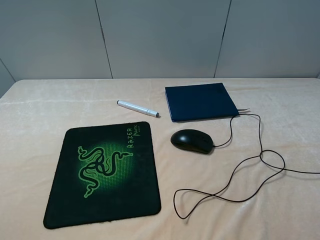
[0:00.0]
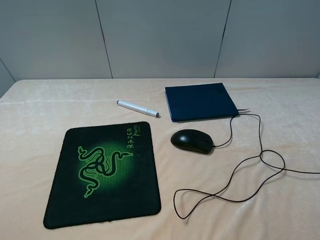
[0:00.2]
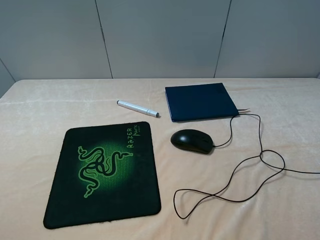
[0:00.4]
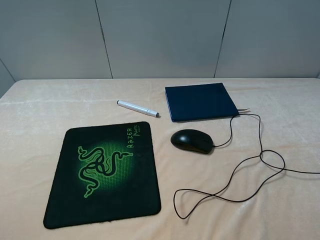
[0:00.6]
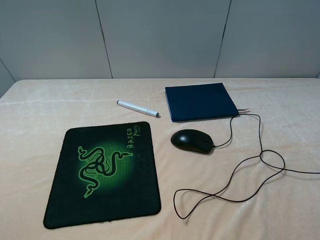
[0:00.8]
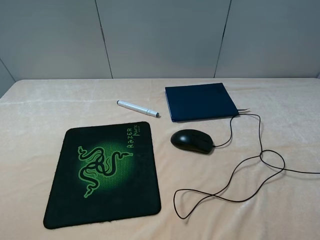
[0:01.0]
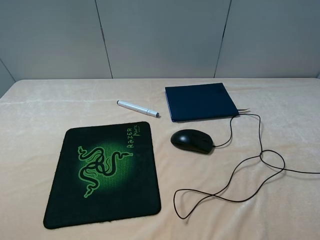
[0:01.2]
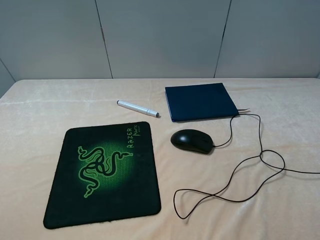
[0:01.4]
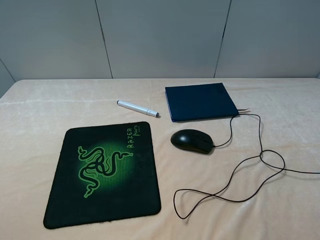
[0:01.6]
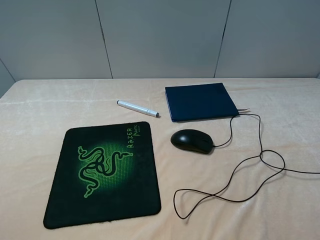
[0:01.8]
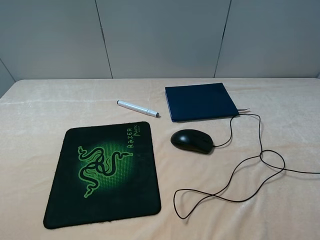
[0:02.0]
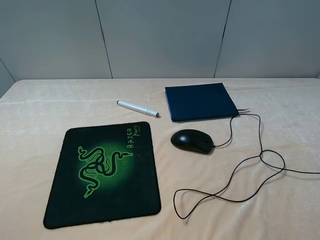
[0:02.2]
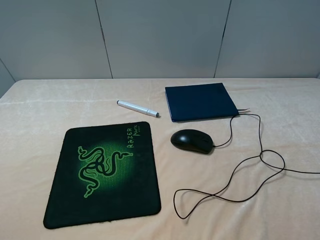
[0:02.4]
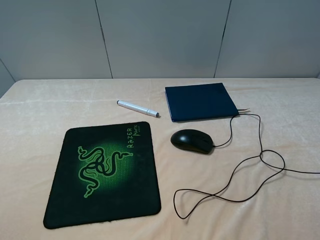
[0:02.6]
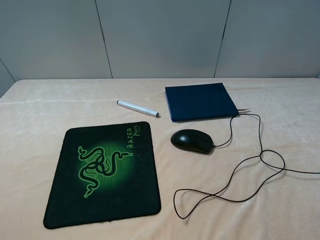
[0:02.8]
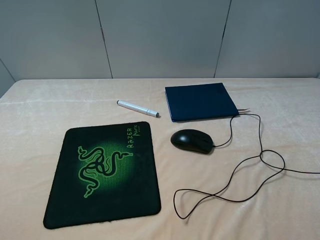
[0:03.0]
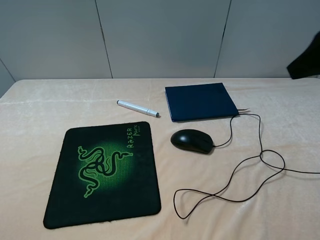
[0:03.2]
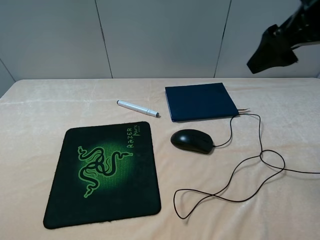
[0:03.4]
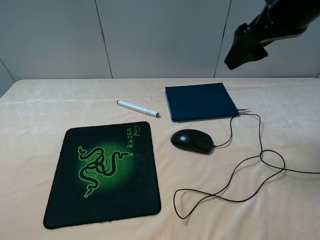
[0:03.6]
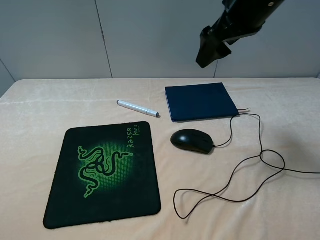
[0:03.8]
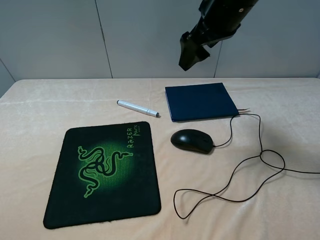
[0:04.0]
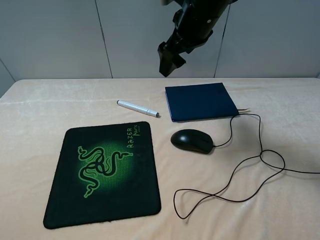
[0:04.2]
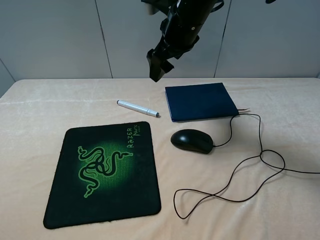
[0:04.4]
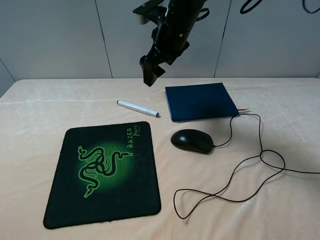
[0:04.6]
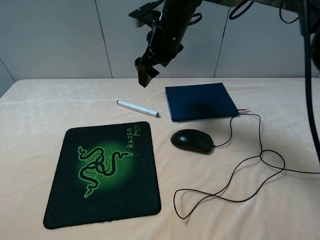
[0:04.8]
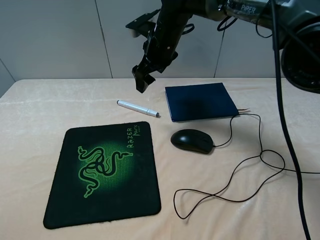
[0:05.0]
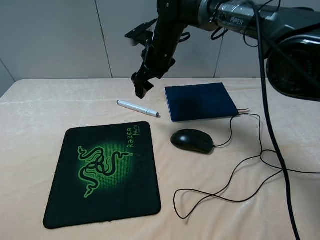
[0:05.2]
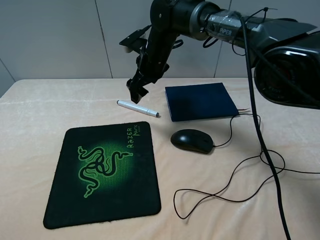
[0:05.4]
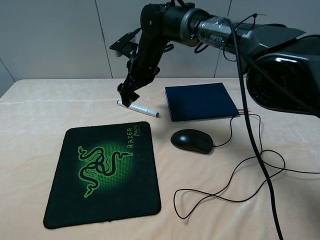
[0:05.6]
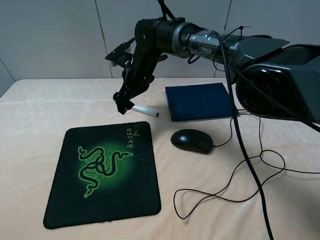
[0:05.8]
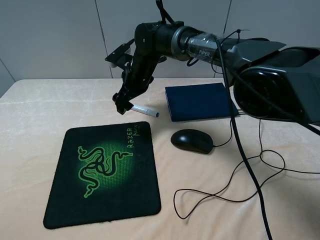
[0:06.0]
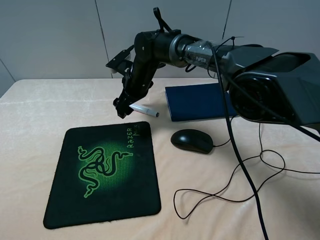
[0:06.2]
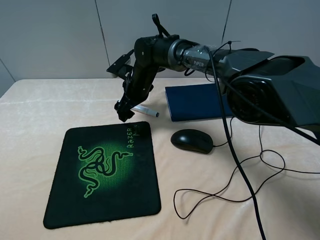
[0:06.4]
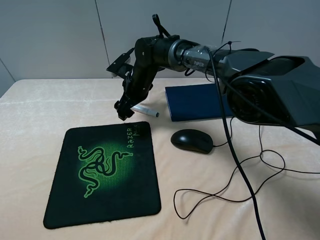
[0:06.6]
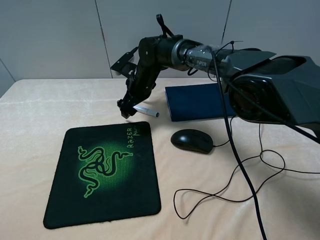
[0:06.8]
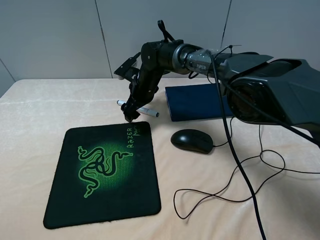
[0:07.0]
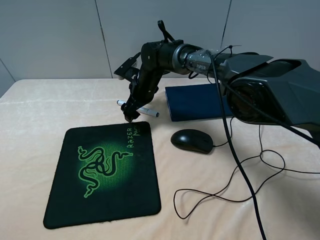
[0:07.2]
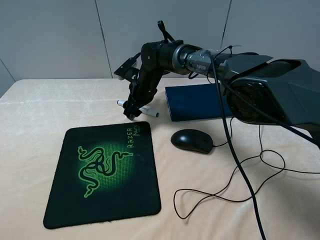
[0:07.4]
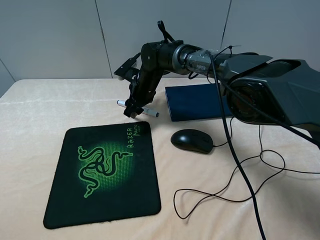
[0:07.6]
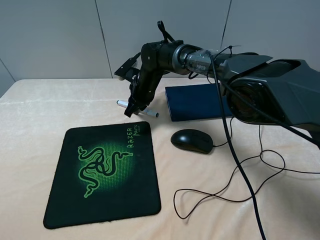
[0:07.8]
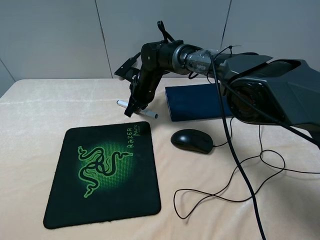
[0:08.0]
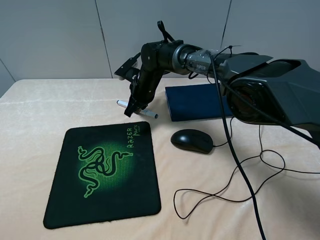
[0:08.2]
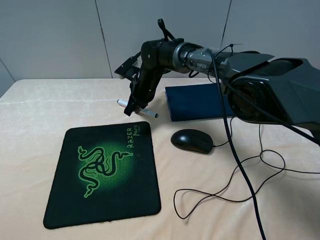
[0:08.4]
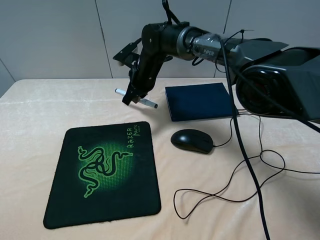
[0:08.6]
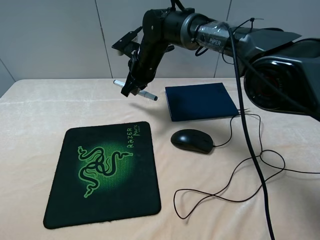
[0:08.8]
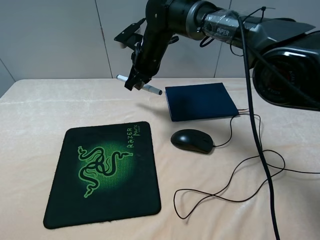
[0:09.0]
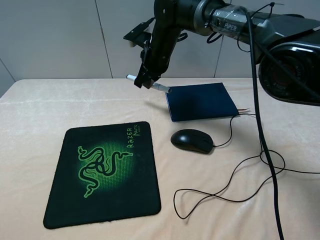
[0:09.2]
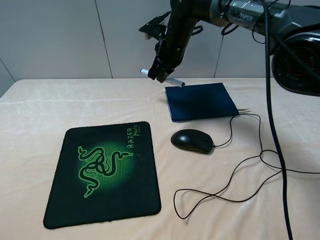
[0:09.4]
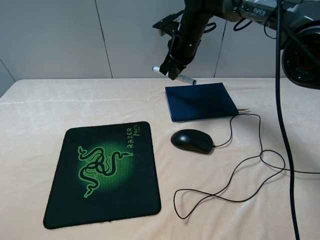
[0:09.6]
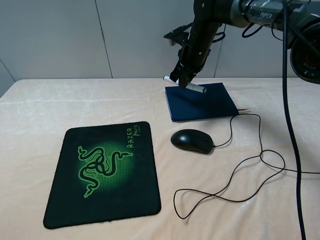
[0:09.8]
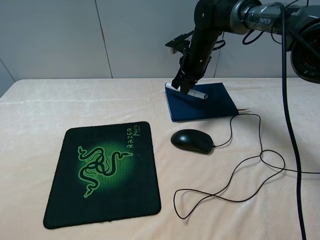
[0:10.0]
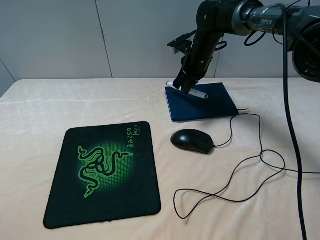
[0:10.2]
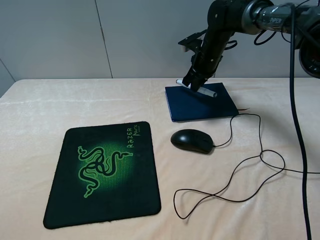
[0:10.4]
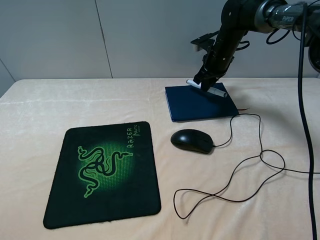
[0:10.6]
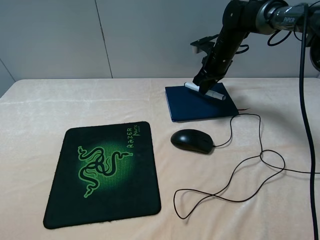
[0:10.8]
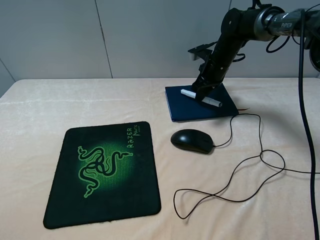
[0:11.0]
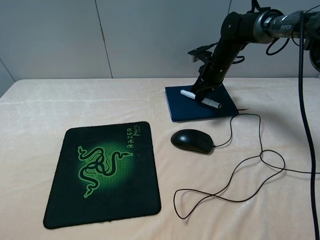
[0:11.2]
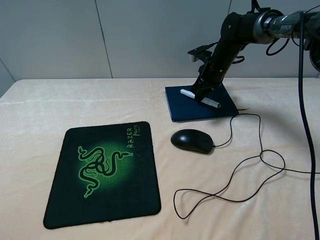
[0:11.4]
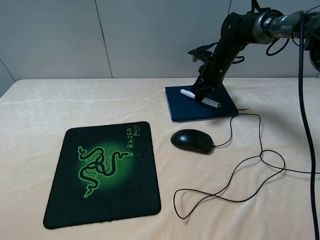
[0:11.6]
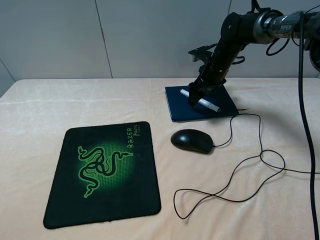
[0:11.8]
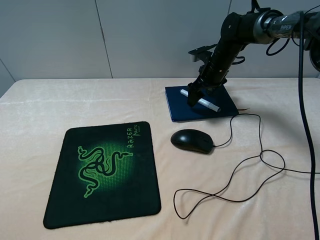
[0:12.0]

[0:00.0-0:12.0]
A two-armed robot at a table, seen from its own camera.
Step, 0:00.0 to 0:08.0: Grasp the marker with the right gripper.
Step, 0:08.2 to 0:12.0: Place the marker on the notebook with the right gripper.
0:00.0 to 0:01.6: Neither gripper changes place.
0:03.0 to 0:04.4: The right gripper goes roughly 30 cm to the left and forward.
0:04.4 to 0:06.0: The right gripper moves downward and to the left, some 15 cm.
0:06.0 to 0:07.6: The right gripper closes up.
0:07.6 to 0:09.0: The right gripper moves upward, roughly 10 cm, and closes.
0:09.0 to 0:10.4: The right gripper travels to the right by approximately 15 cm.
0:10.4 to 0:12.0: The right gripper opens up.

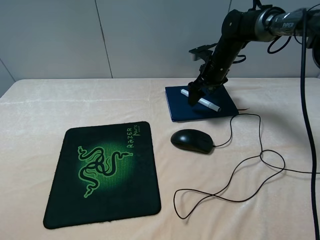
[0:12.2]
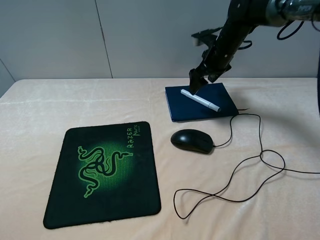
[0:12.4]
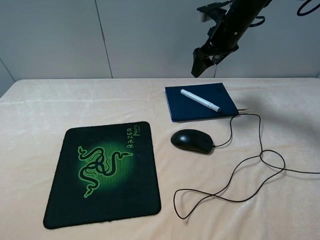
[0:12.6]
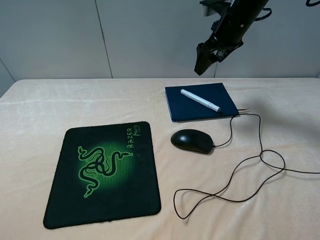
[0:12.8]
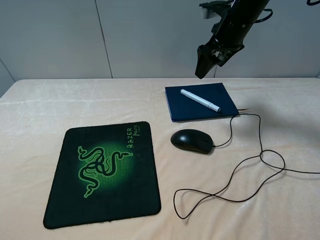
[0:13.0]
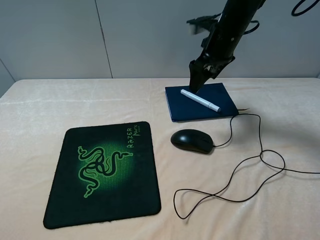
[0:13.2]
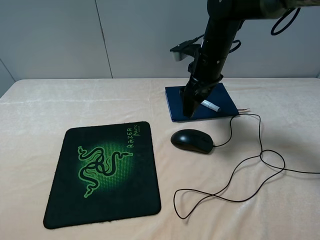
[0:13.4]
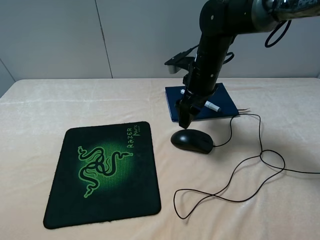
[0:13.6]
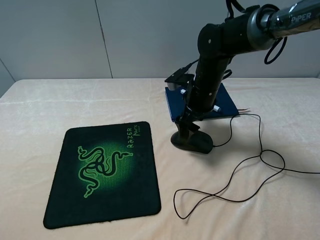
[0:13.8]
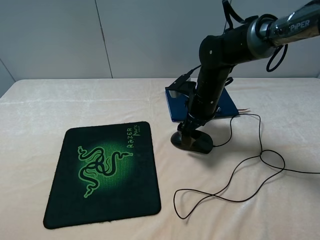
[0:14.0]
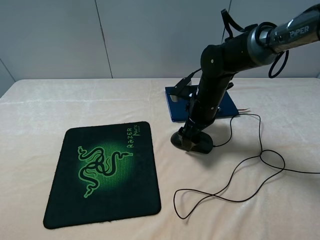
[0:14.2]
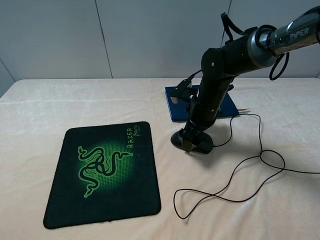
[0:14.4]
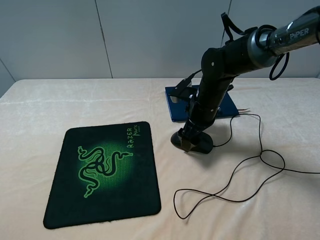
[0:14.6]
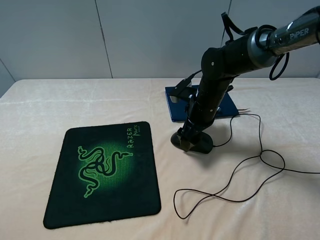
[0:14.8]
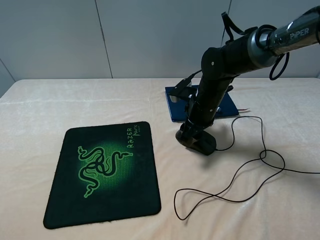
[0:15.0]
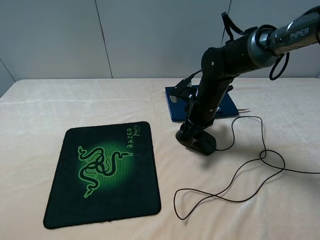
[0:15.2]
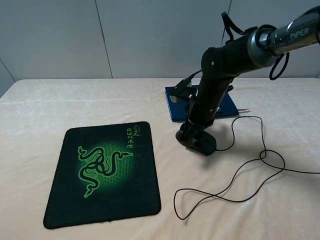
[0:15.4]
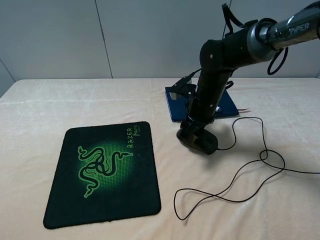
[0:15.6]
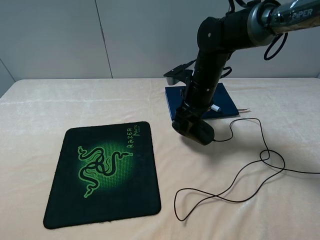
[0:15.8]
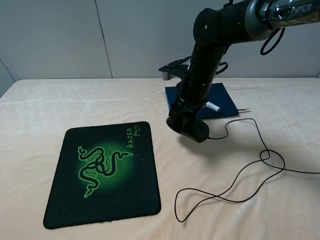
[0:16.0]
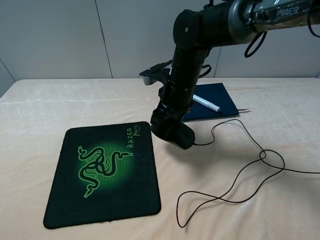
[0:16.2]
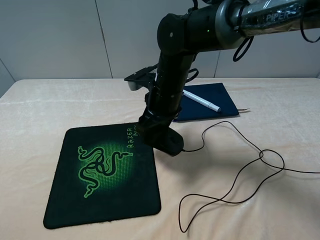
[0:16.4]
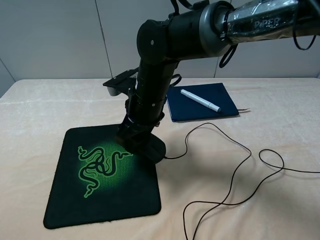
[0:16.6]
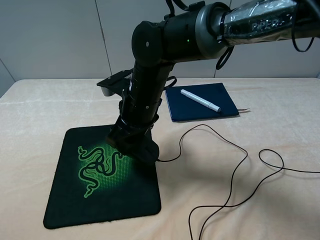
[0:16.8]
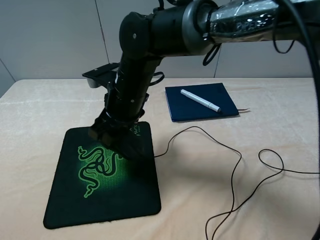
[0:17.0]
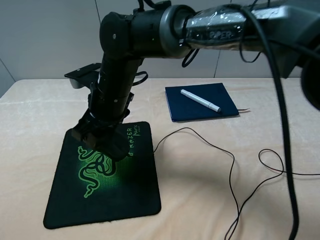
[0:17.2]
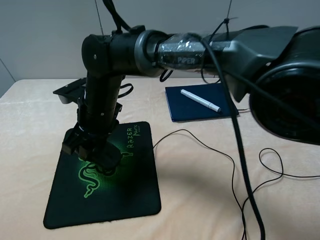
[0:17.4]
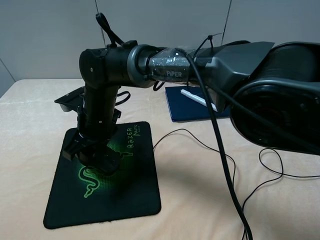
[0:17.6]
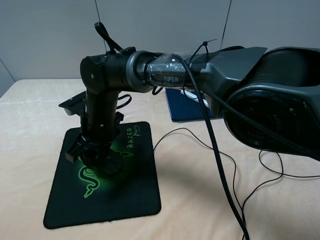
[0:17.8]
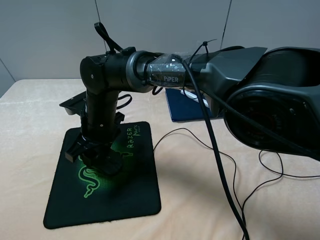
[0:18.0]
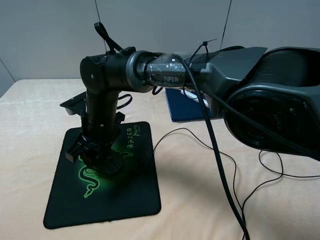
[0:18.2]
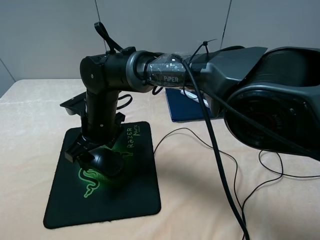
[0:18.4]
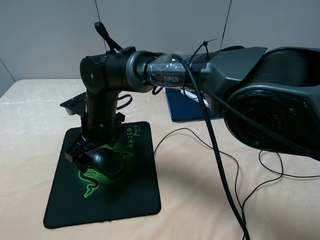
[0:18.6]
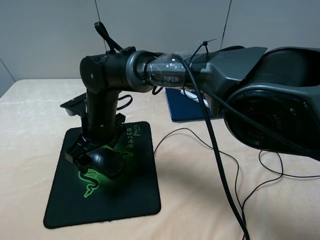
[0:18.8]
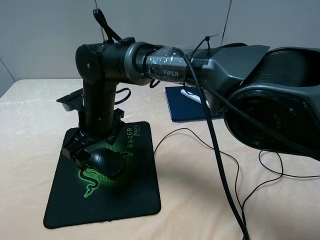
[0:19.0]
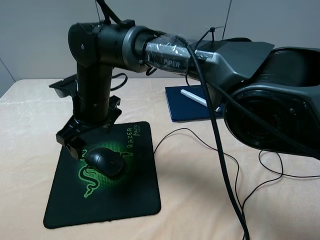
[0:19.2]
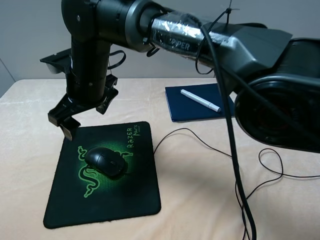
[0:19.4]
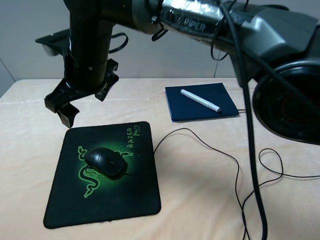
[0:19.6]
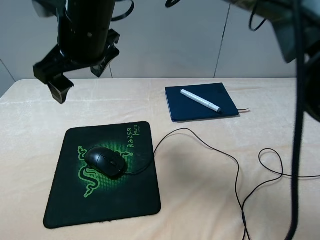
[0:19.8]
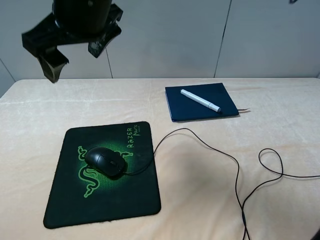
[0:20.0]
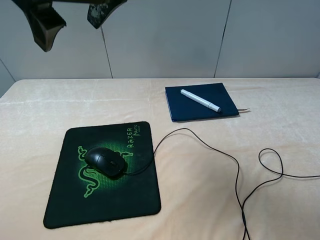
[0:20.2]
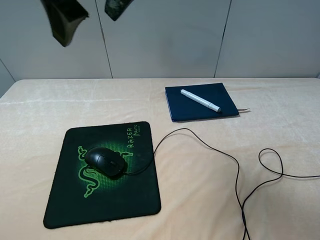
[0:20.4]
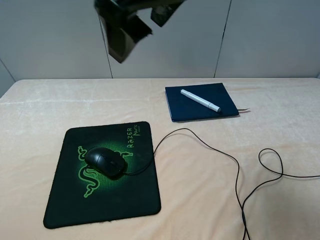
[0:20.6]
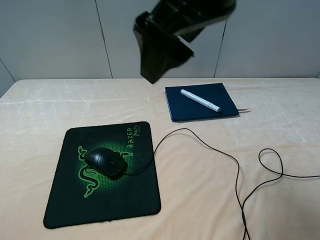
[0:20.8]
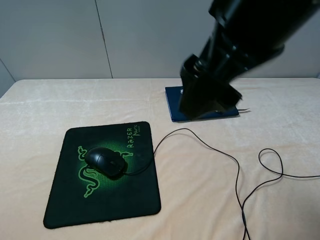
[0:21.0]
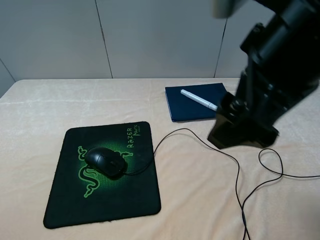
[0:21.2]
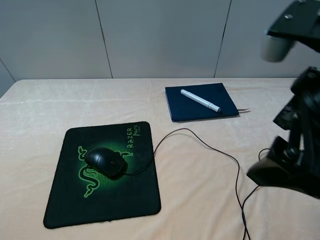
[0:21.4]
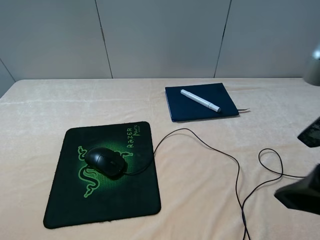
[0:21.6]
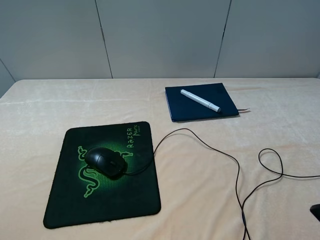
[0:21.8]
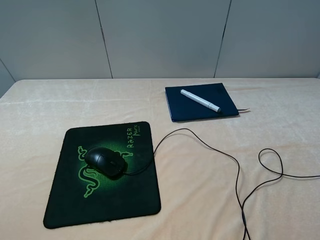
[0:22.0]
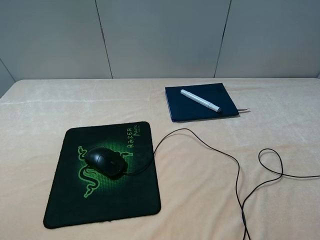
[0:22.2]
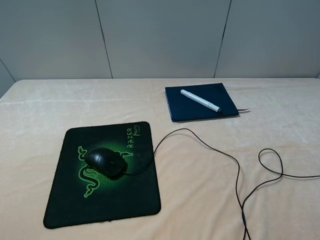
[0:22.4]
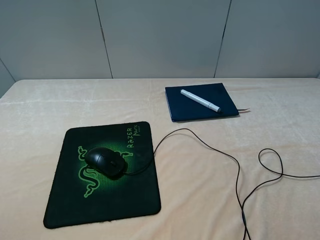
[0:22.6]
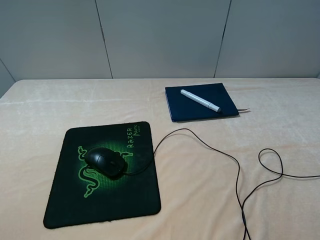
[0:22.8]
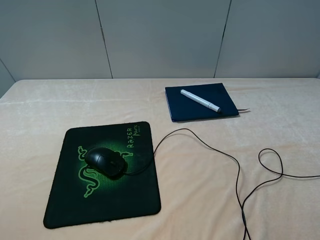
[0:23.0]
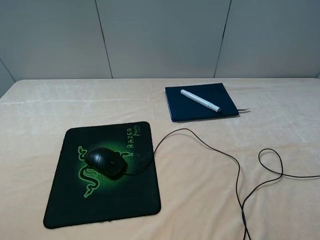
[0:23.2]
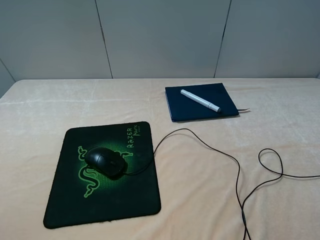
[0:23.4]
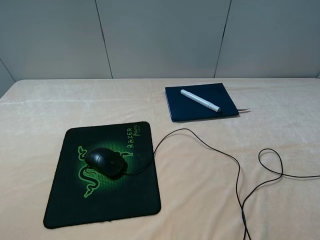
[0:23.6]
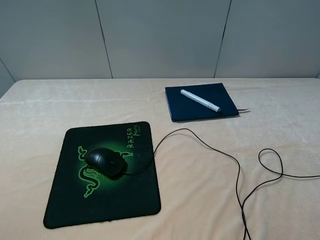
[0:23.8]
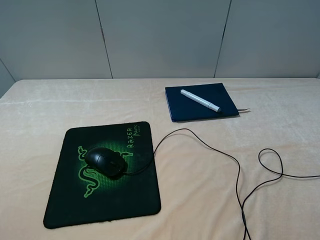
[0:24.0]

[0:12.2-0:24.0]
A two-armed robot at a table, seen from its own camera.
Step, 0:12.2 to 0:15.0: Grasp the mouse with the right gripper.
Step, 0:15.2 to 0:18.4: Place the mouse on the mouse pad with the right gripper.
0:12.2 to 0:13.6: The right gripper moves backward and to the left, about 10 cm, and reaches roughly 10 cm upward, then returns.
0:13.6 to 0:15.2: The right gripper heads downward, covering some 5 cm, and closes.
0:15.2 to 0:16.6: The right gripper moves to the left, backward and upward, approximately 15 cm.
0:16.6 to 0:18.2: The right gripper heads to the left and downward, covering about 10 cm.
0:18.2 to 0:19.6: The right gripper shifts approximately 15 cm upward, and opens up.
0:19.6 to 0:21.0: The right gripper moves to the right, backward and upward, approximately 25 cm.
0:21.0 to 0:22.6: The right gripper goes about 30 cm to the right, backward and downward.
0:22.6 to 0:24.0: Neither gripper changes place.
